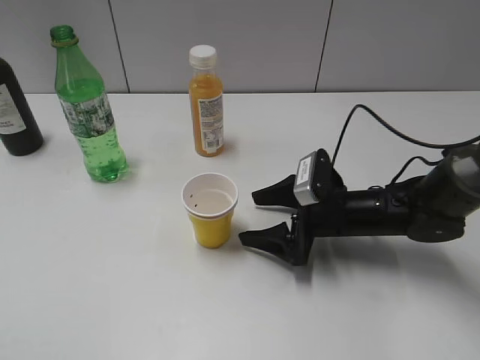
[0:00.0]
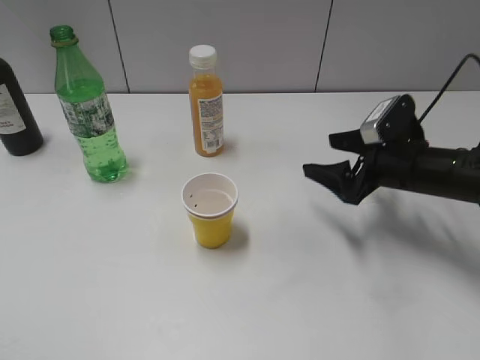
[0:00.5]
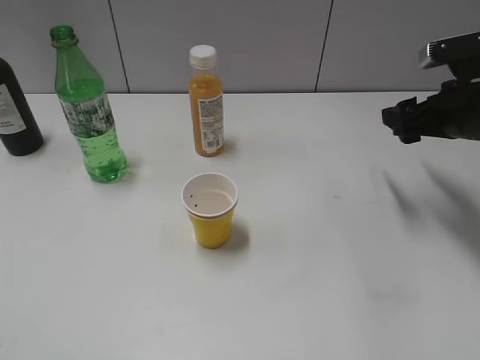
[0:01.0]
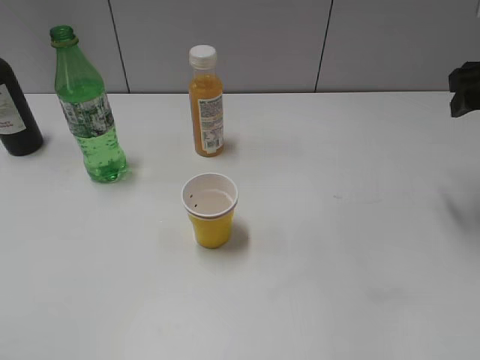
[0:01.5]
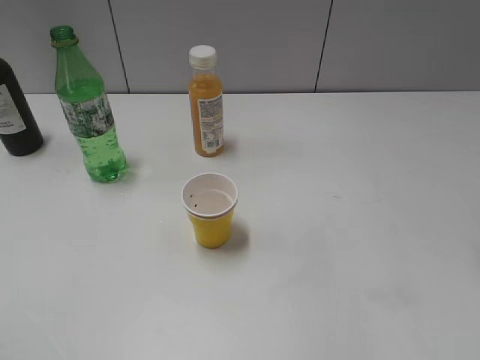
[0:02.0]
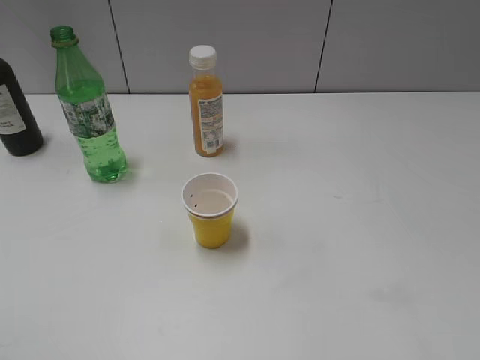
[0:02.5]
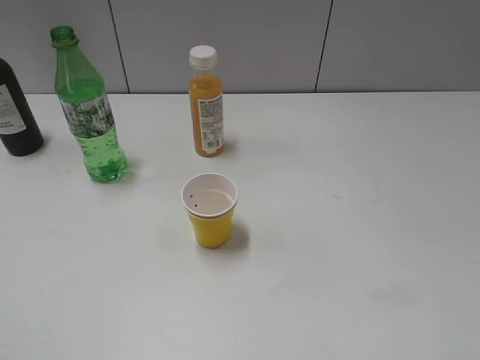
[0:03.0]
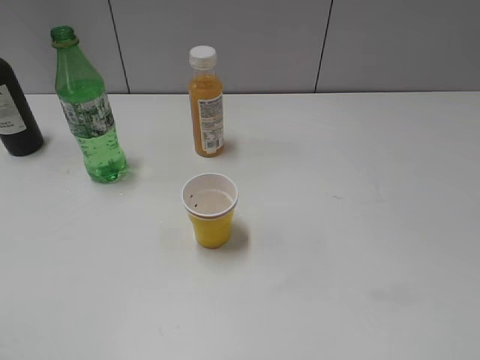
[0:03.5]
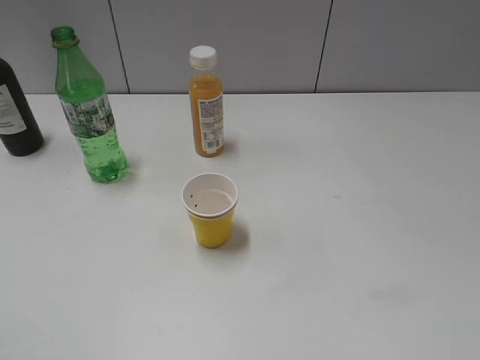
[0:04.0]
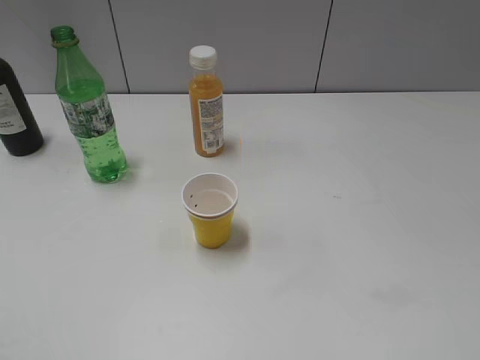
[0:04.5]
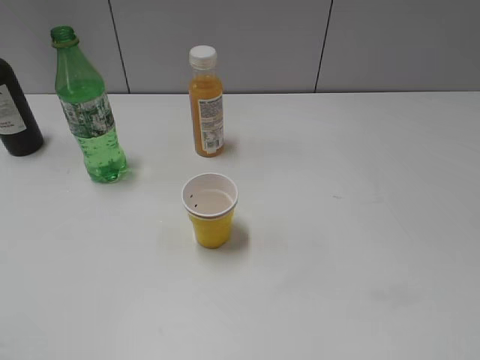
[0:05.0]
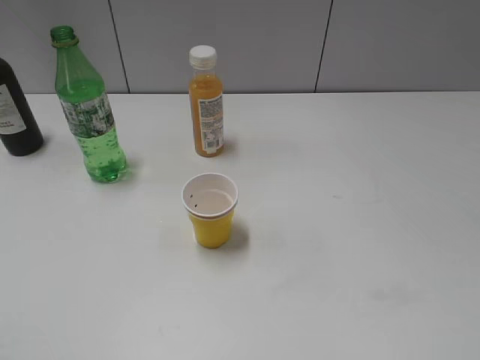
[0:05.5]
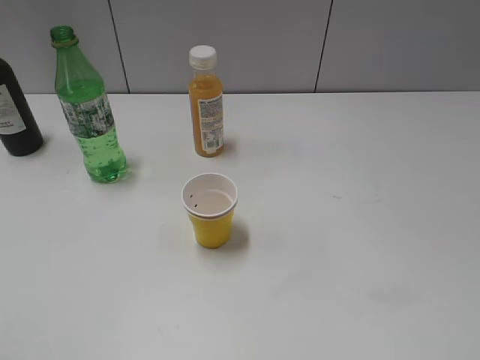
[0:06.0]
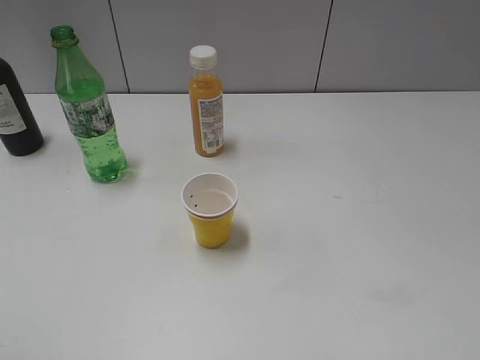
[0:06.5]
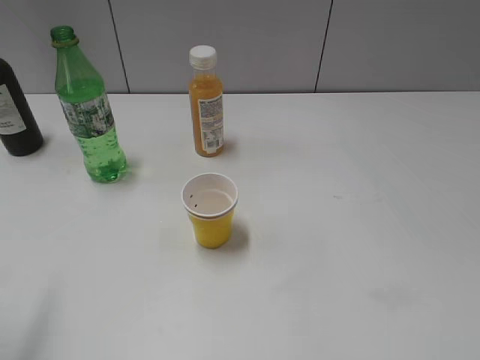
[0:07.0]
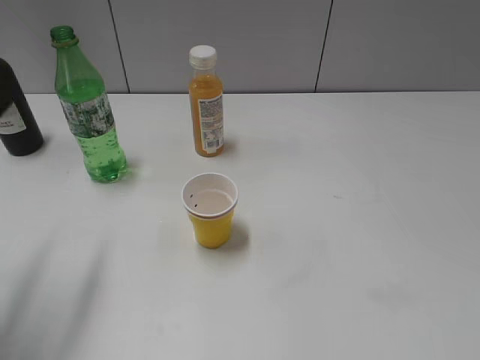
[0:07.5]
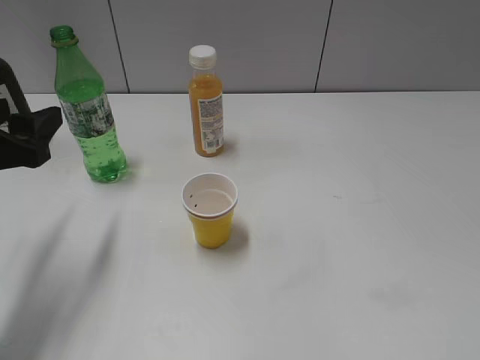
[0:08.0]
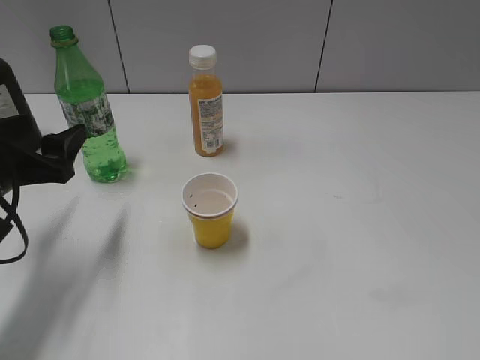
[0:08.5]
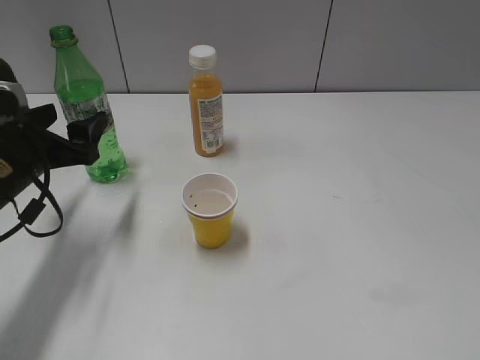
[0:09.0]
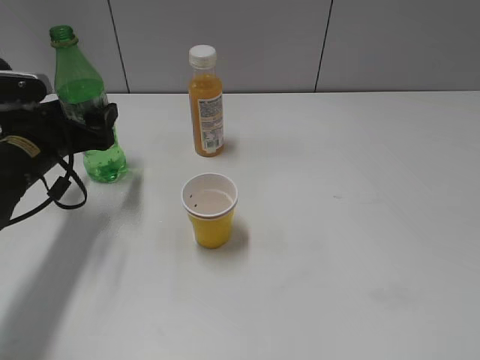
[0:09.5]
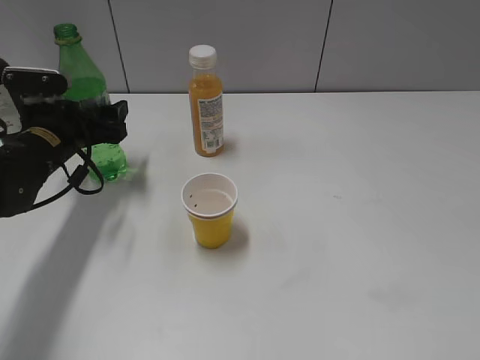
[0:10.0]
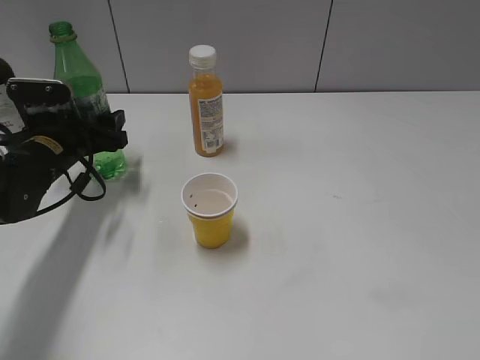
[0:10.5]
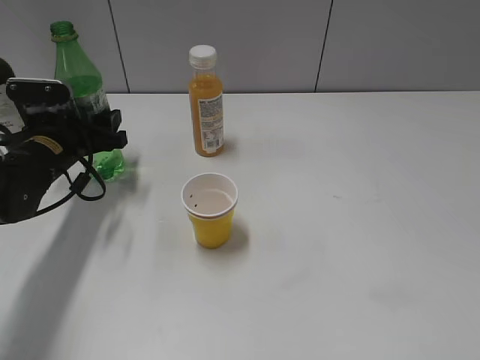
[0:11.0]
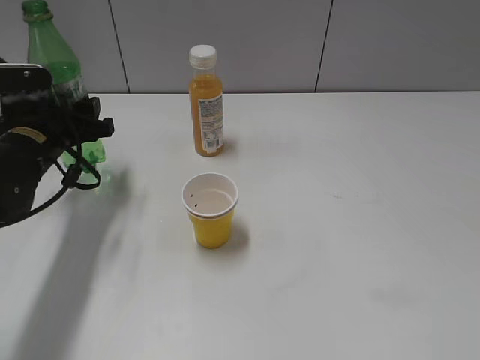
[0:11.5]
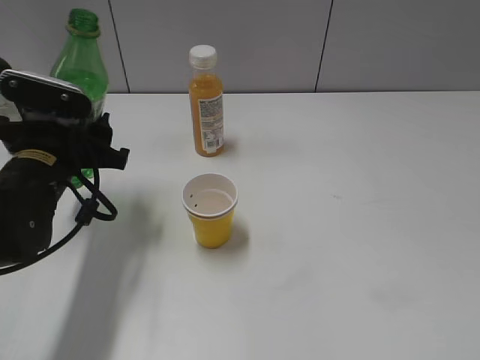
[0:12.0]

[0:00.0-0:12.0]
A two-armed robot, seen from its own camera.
Step, 0:00.0 to 0:11.0: Grasp the bottle with sprite with left gripper.
0:00.0 to 0:02.0: The right gripper moves upward and to the right, about 35 cm, and closes its fingers.
0:04.0 to 0:06.0: Both grippers stay put.
0:06.0 to 0:08.0: The left gripper is displaced forward by roughly 25 cm.
0:08.0 to 0:10.0: The left gripper goes about 15 cm forward and downward, and opens up.
0:10.0 to 0:12.0: The left gripper goes about 10 cm backward, and closes.

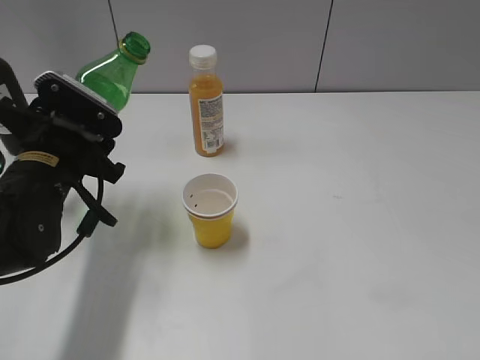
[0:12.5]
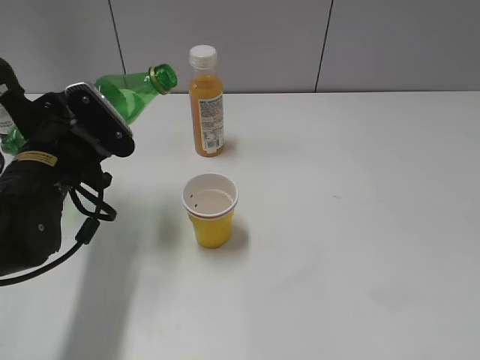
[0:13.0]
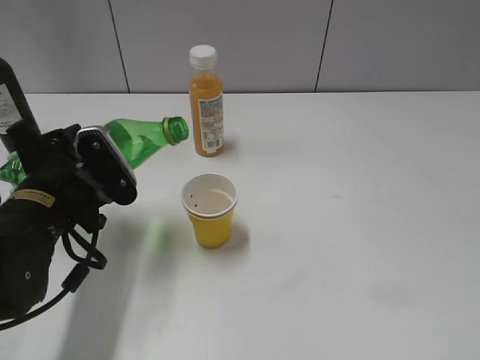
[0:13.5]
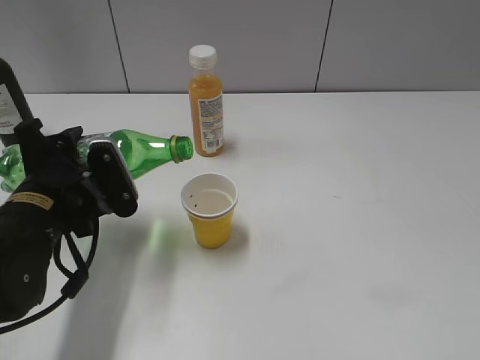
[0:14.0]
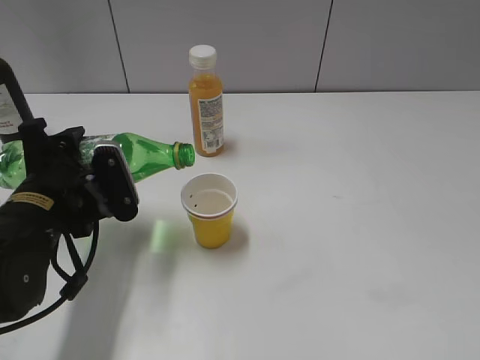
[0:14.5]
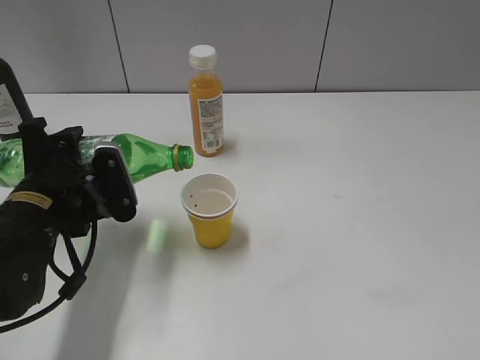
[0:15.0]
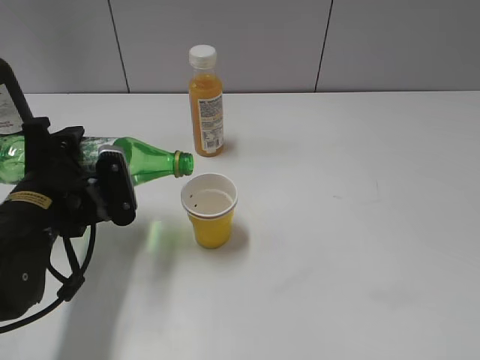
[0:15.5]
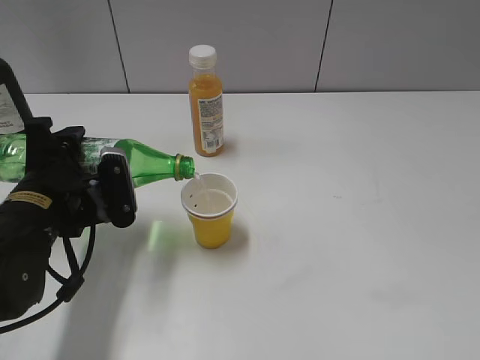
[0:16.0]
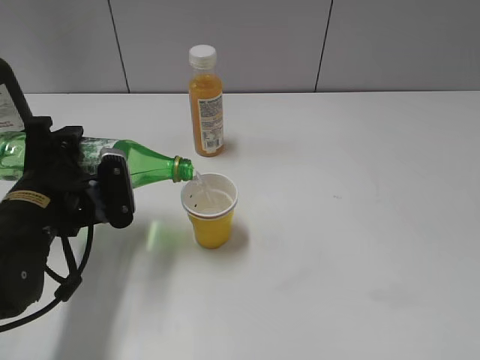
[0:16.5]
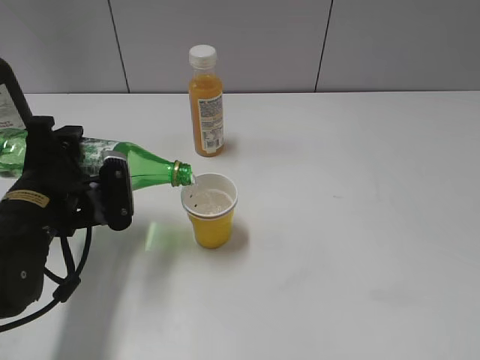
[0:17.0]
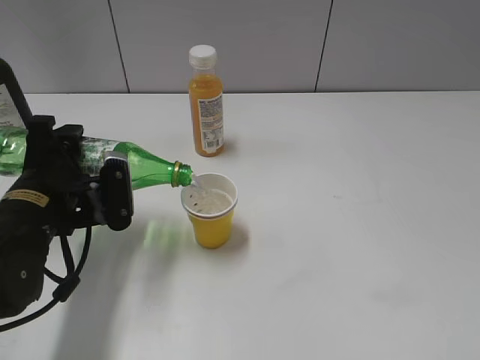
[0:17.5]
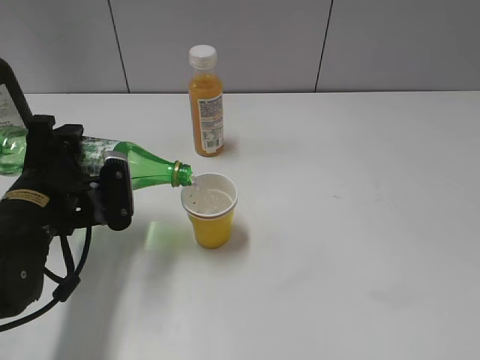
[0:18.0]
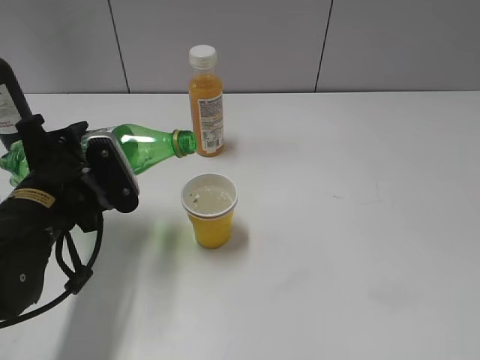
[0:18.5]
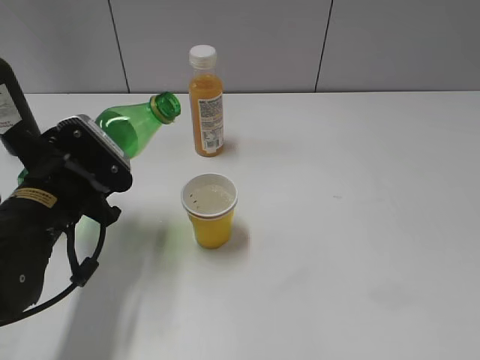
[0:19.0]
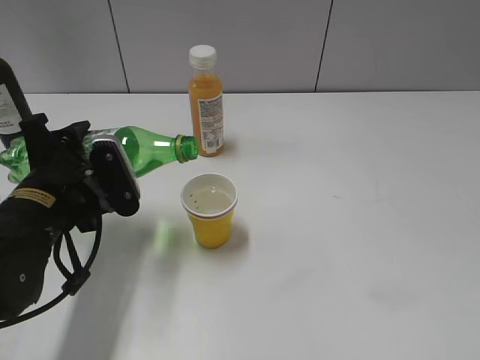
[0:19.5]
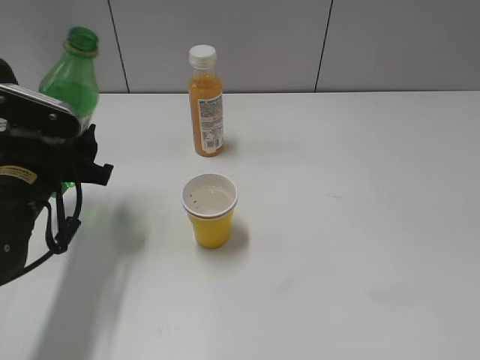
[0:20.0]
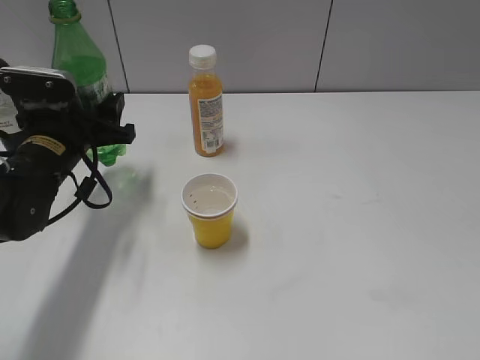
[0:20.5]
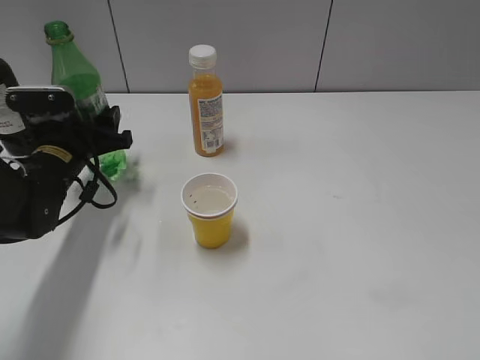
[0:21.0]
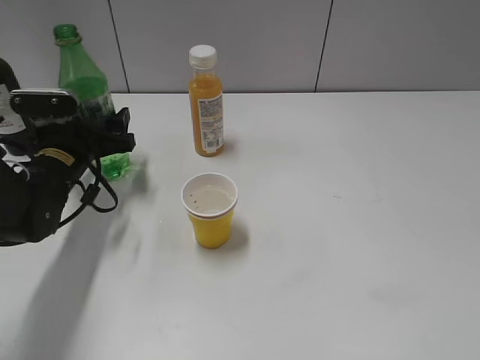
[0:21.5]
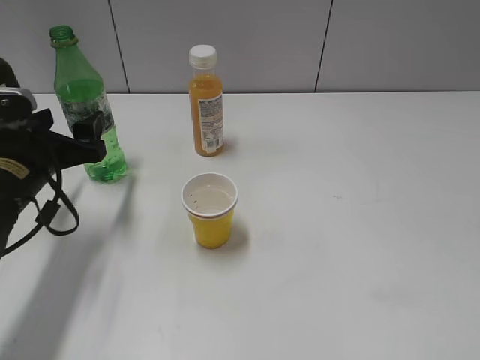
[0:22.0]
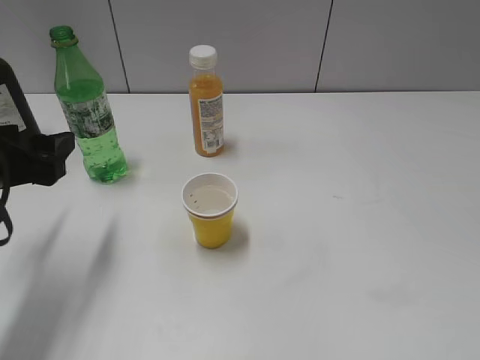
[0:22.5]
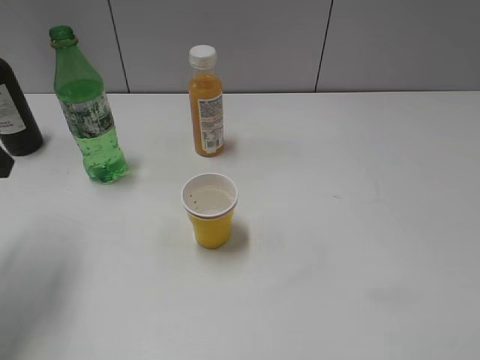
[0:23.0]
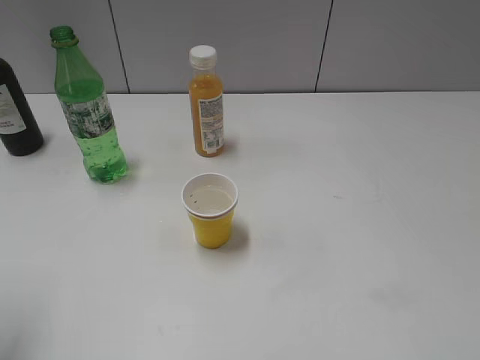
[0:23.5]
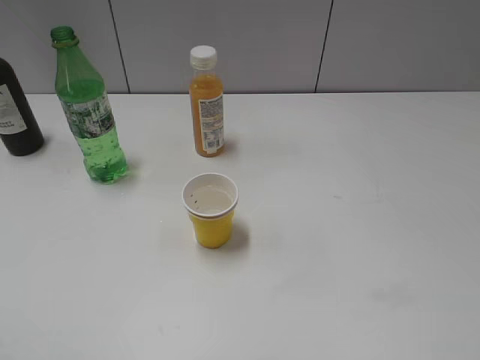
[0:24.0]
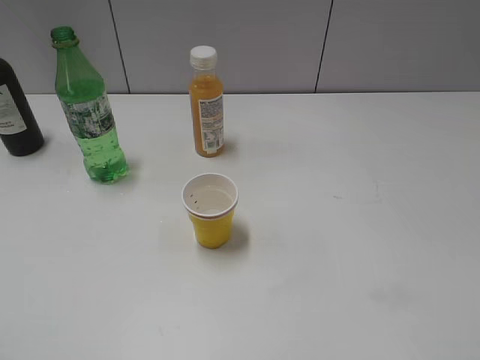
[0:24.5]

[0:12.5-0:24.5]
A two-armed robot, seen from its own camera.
Step, 0:12.5 to 0:18.5: Pour the sprite from bottle to cup with left gripper.
Step, 0:19.0 to 0:21.5: Place the sprite bottle on the table with left gripper.
0:14.5 to 0:18.5: There are only small adjustments of the grippers.
0:18.5 to 0:20.5: The left gripper moves forward, roughly 10 cm.
0:20.5 to 0:22.5: The left gripper goes some 10 cm backward, and opens its fingers.
0:22.5 to 0:24.5: The left gripper travels backward and upward by some 25 cm.
